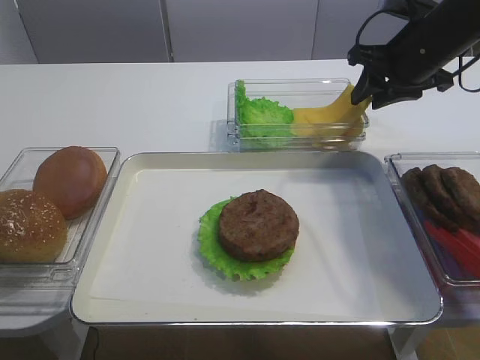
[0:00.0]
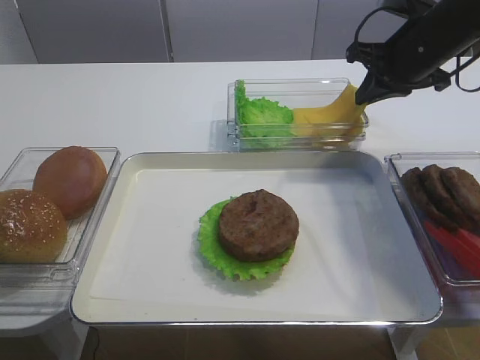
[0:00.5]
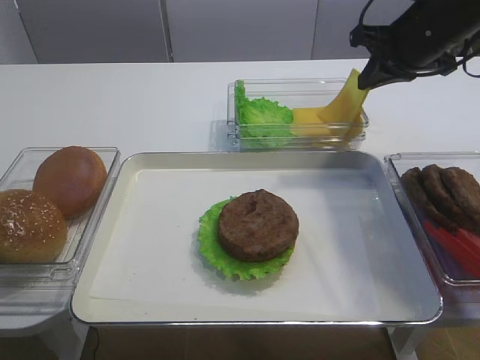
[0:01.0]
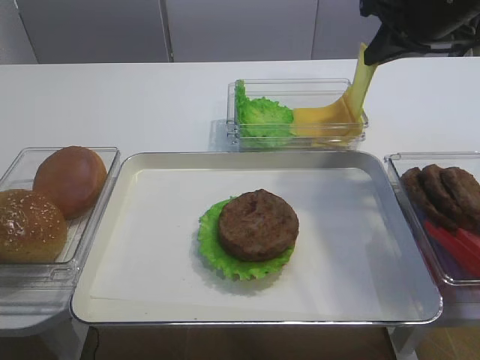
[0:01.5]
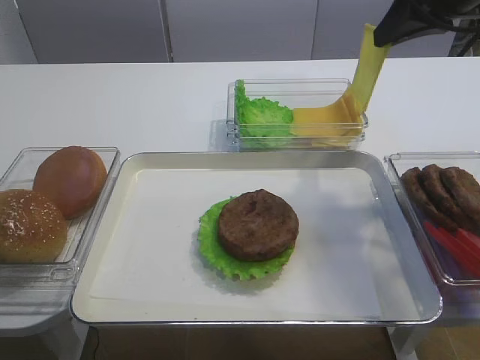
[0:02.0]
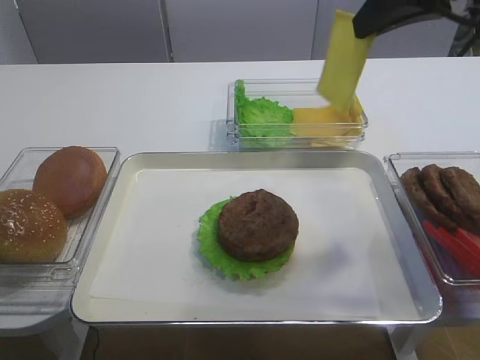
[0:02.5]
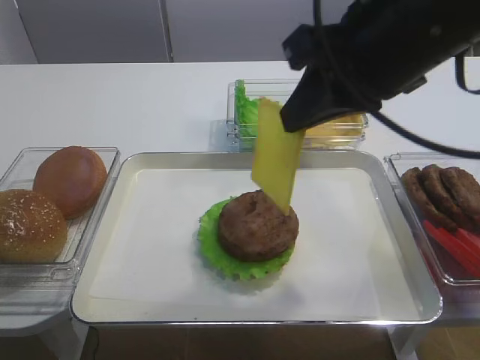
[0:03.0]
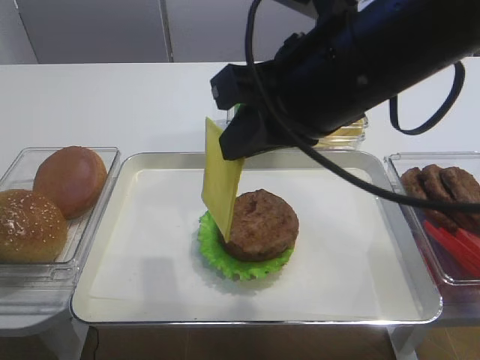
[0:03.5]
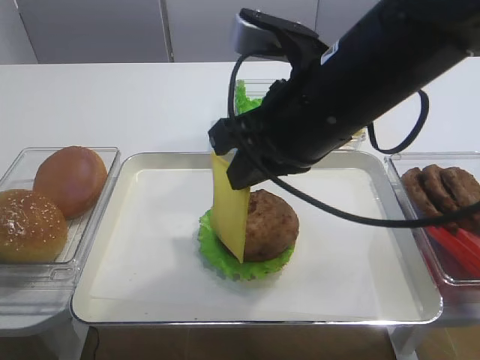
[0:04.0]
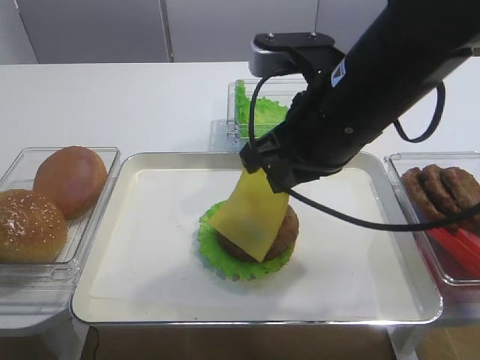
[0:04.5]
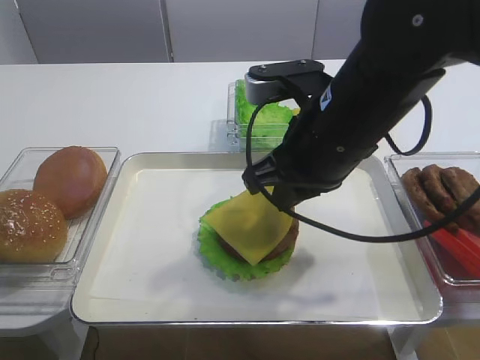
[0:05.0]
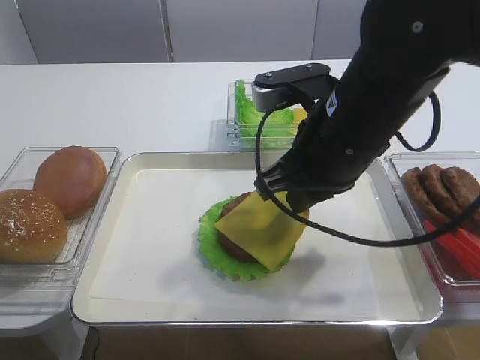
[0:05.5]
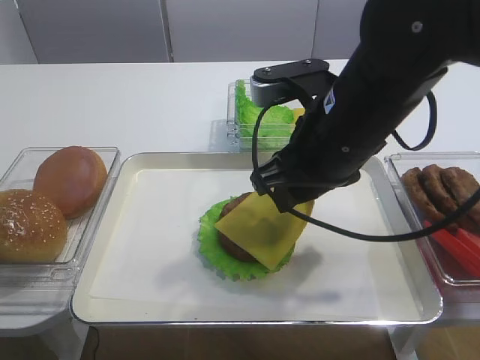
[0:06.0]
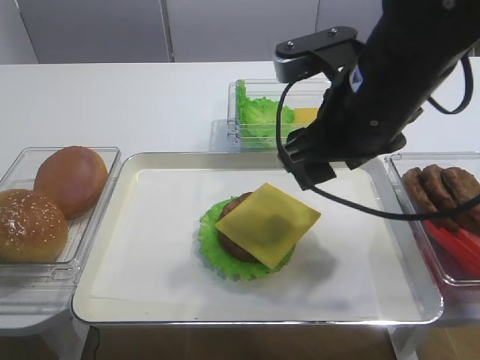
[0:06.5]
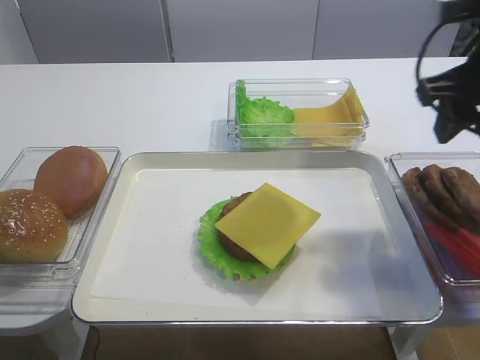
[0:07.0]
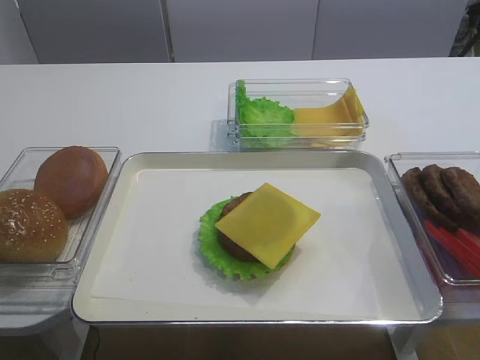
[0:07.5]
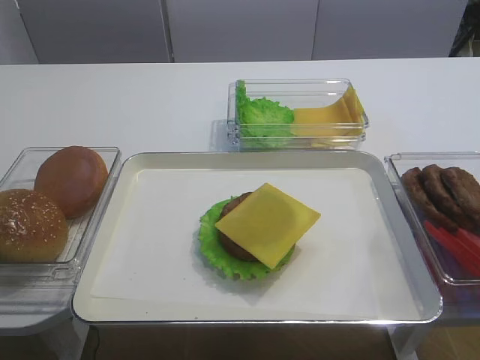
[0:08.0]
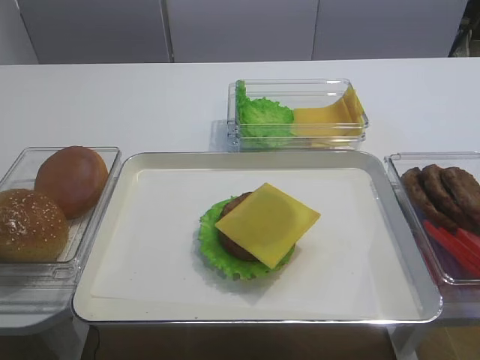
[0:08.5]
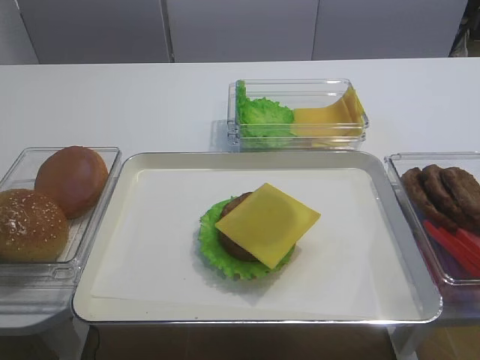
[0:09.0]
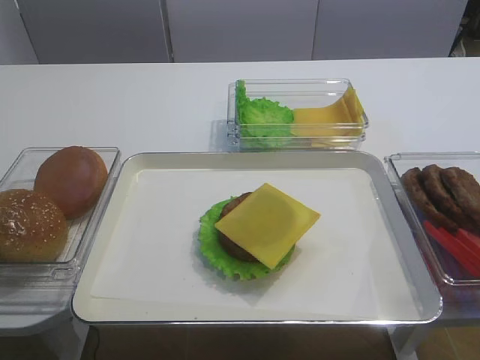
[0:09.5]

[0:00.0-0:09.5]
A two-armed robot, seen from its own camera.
Step, 0:01.0 to 0:06.0: Place the cheese slice on the cutlet with the right gripper.
0:00.0 to 0:02.0: The right gripper travels upward and backward by some 10 cm, and closes up.
0:02.0 to 0:04.0: The right gripper is displaced to the left, backward and downward by about 20 cm.
0:05.5 to 0:07.5: The right gripper moves to the right and backward, about 20 cm, and opens its fingers.
0:07.5 to 0:09.5: The right gripper is displaced backward by some 15 cm.

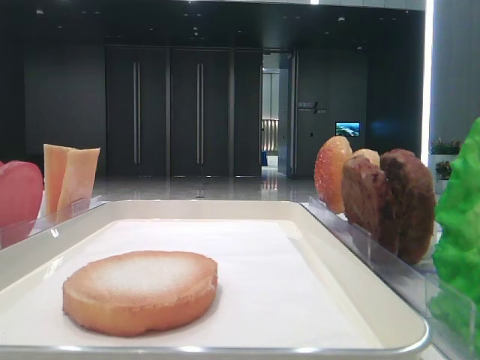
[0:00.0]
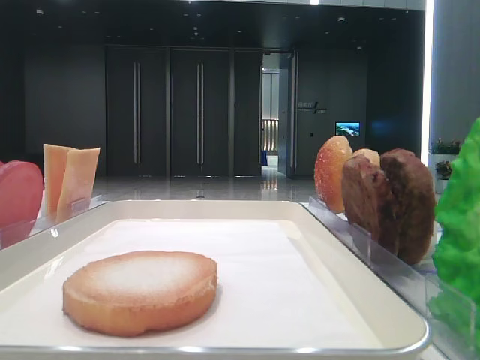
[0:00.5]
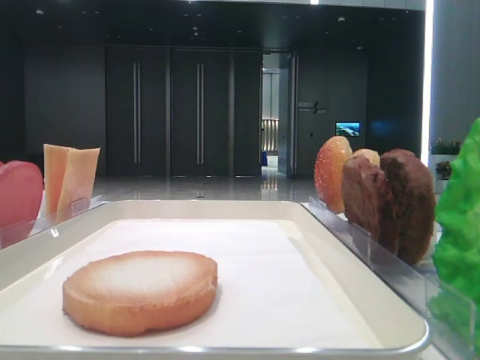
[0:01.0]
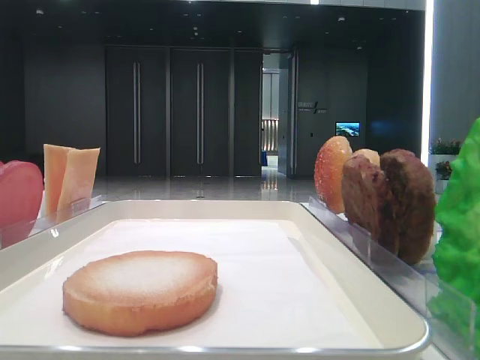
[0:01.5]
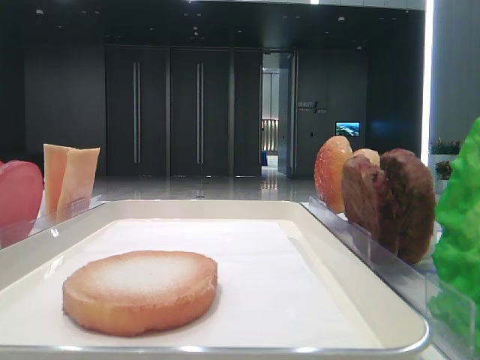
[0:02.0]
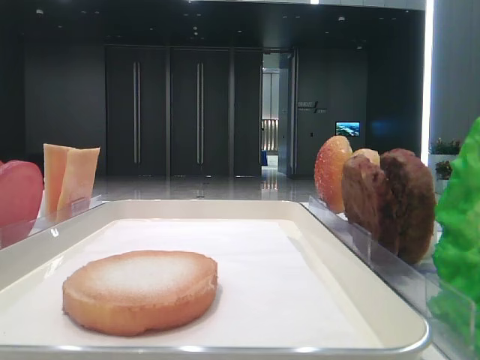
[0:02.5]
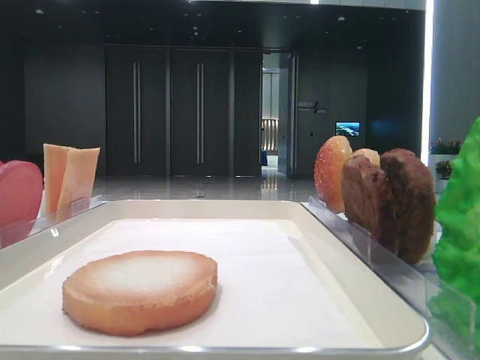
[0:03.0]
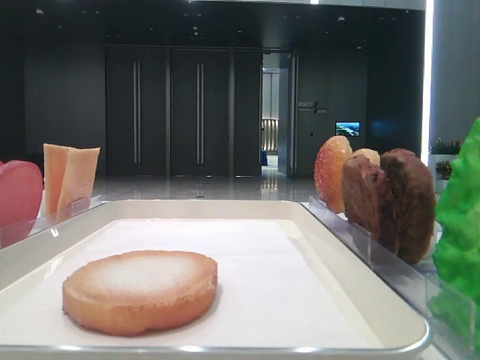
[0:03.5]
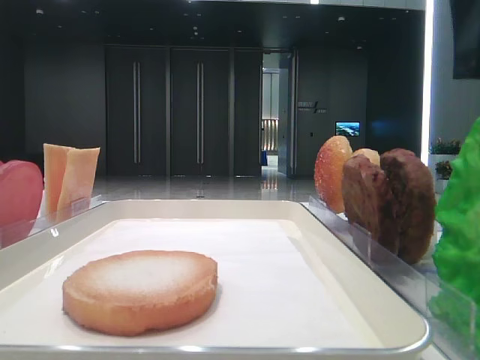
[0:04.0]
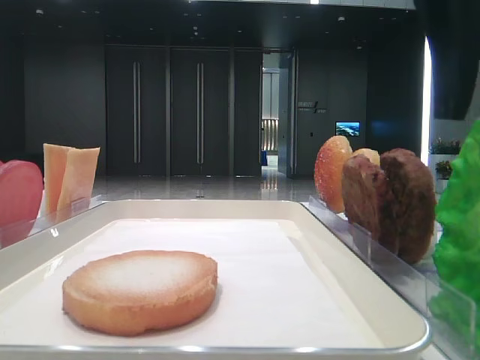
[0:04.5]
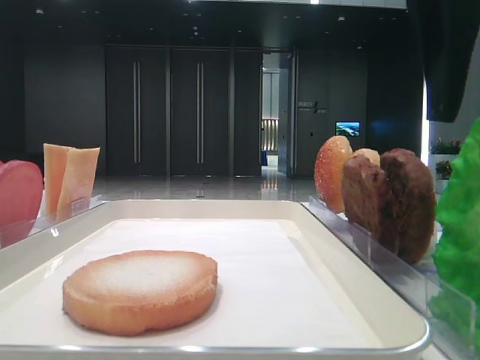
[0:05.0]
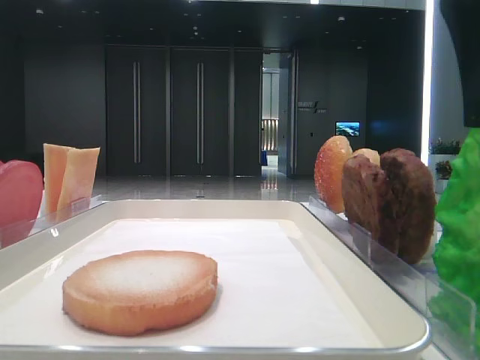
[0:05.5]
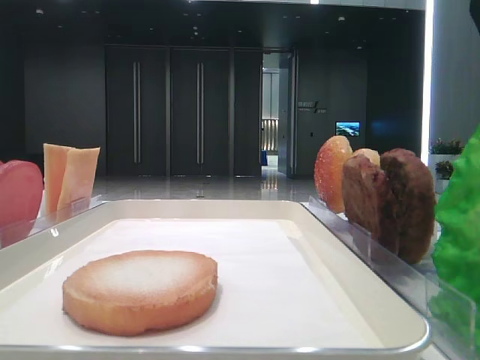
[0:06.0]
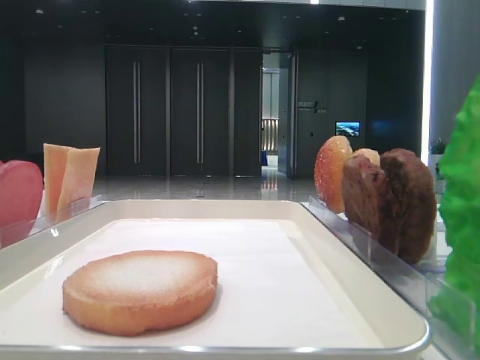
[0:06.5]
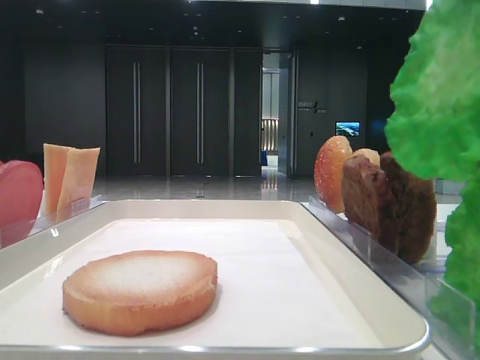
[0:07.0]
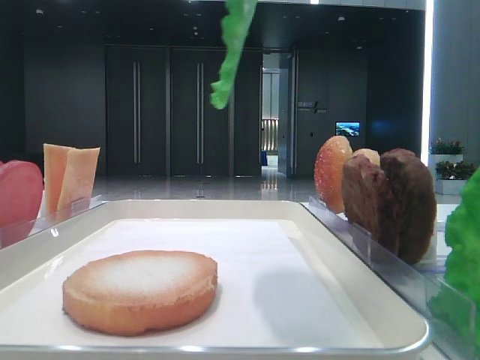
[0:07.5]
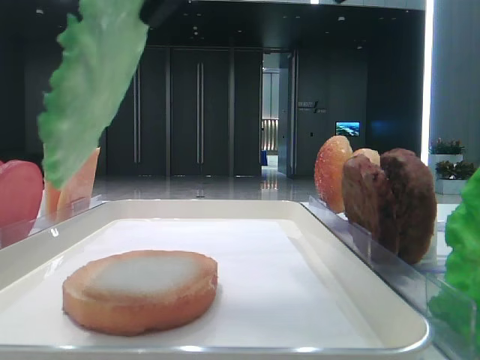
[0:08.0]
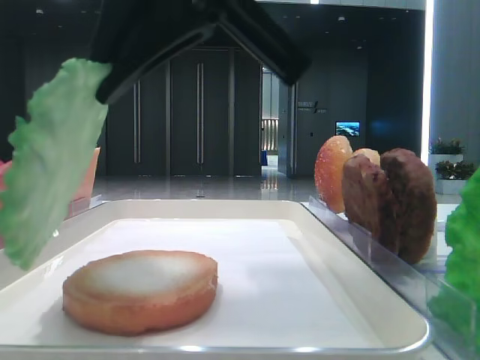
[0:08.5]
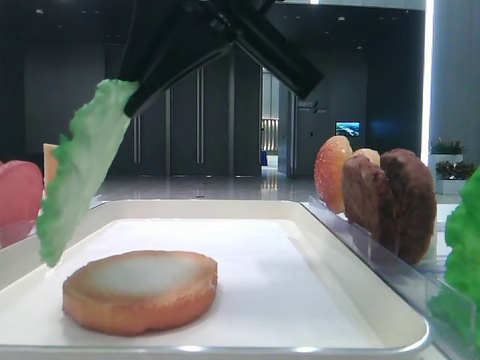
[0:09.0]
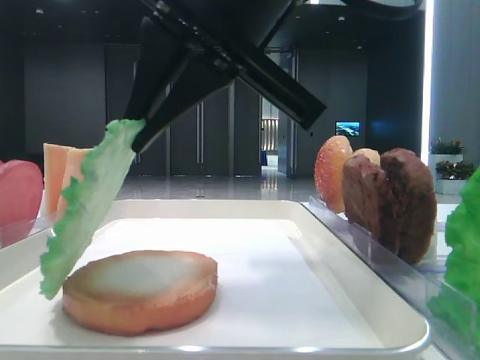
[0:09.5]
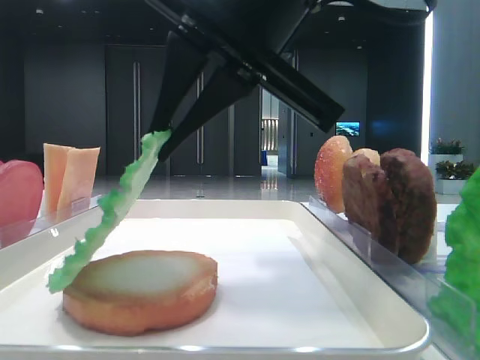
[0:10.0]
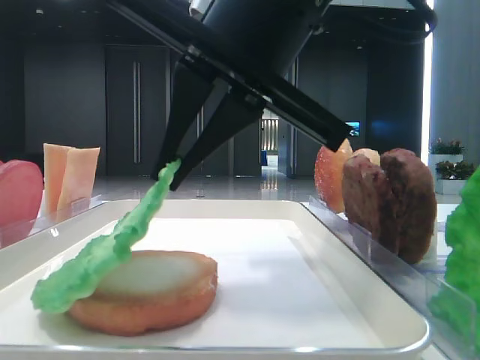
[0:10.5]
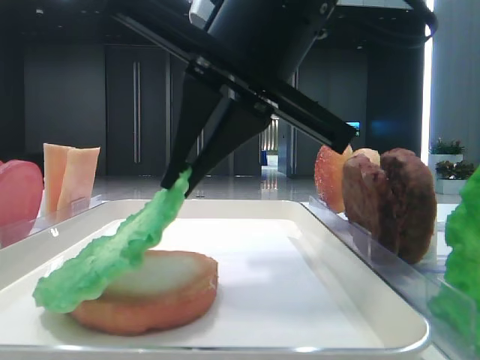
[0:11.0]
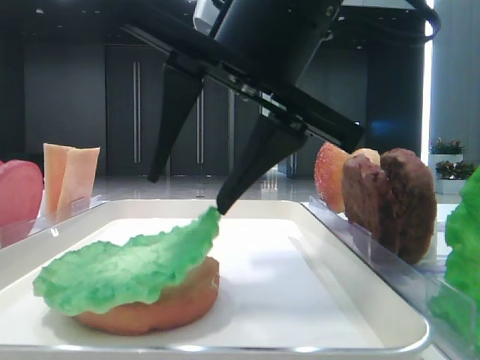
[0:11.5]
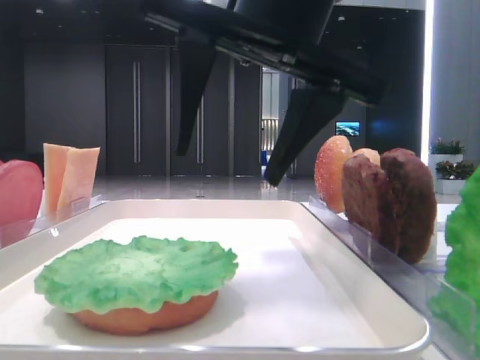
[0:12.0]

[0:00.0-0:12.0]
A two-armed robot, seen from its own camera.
Step, 0:00.0 to 0:06.0: Grab the lettuce leaf with the right hand.
Step, 0:06.5 to 0:11.5: Place the lettuce leaf on the bottom bread with the right hand.
0:02.0 to 0:04.0: The right gripper heads to the left, forward and downward, covering roughly 15 cm.
0:04.0 to 0:06.0: The right gripper closes.
0:06.0 to 0:08.0: The right gripper goes some 10 cm to the left.
0:08.0 to 0:10.0: The right gripper is displaced downward by about 5 cm.
0:10.0 to 0:12.0: The right gripper opens up.

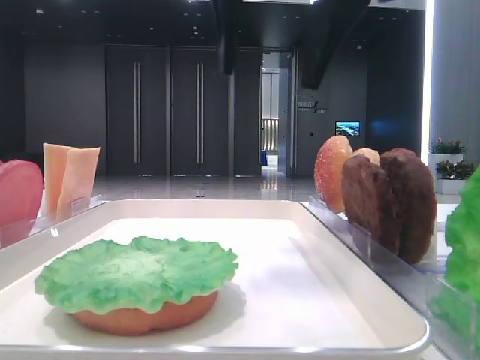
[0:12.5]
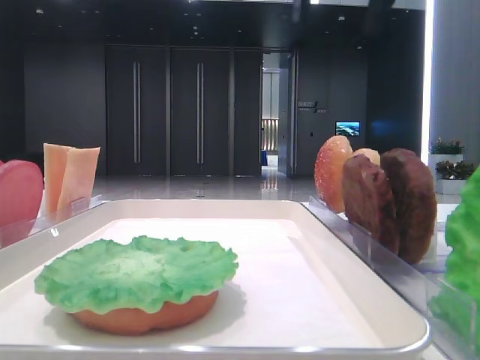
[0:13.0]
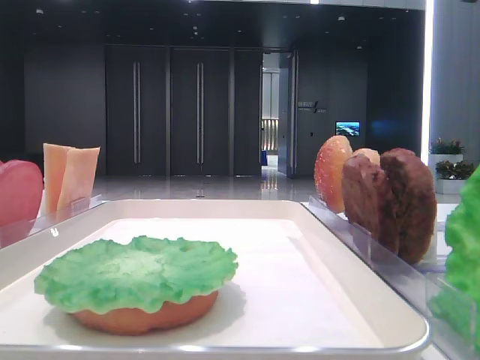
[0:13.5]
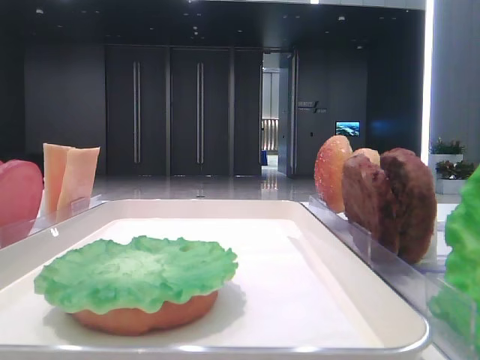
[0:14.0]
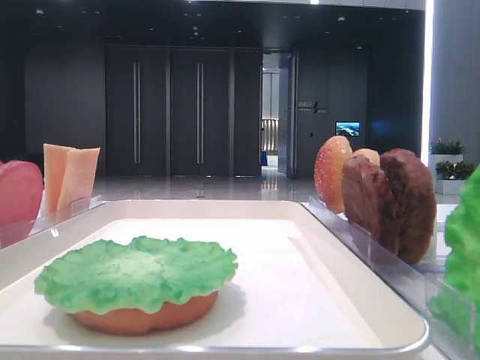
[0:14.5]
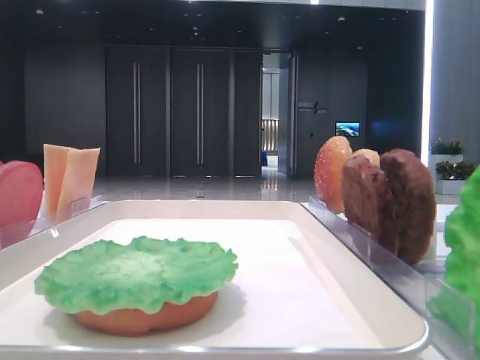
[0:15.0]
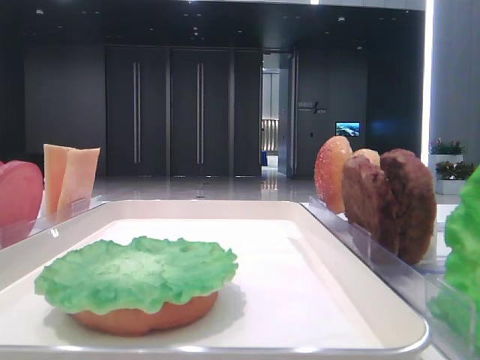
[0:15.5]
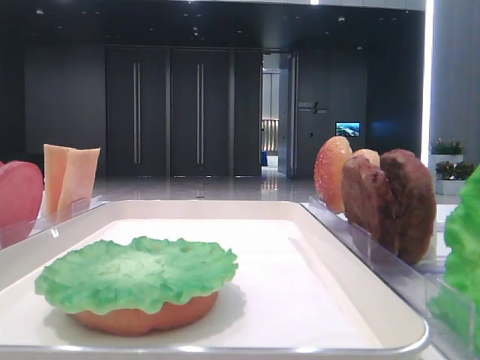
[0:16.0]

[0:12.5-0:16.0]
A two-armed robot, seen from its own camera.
0:12.5 to 0:14.5: The right gripper shifts about 30 cm to the right and backward.

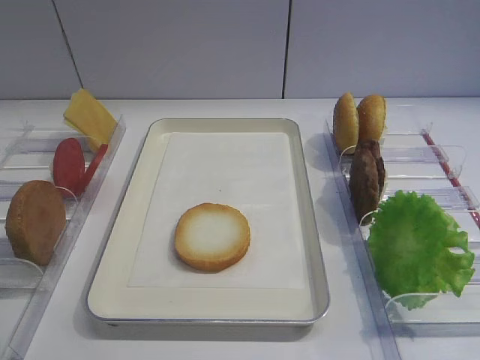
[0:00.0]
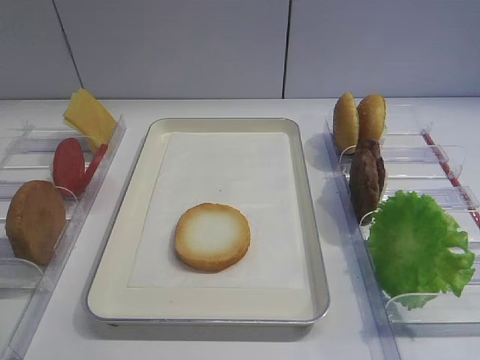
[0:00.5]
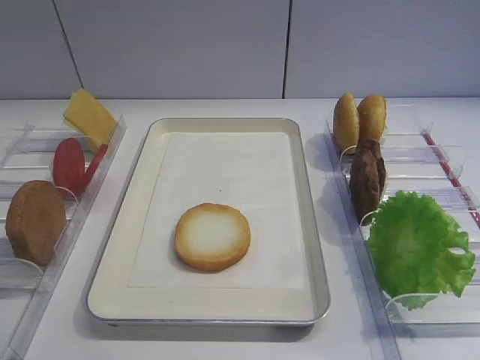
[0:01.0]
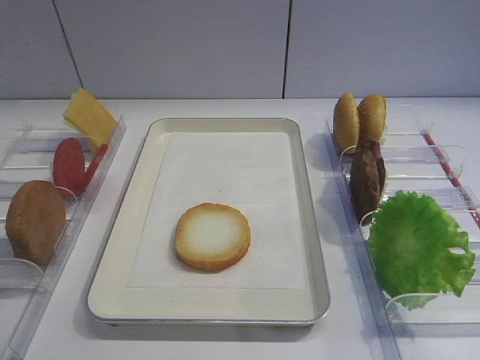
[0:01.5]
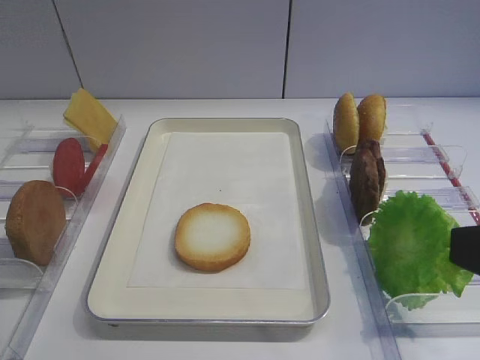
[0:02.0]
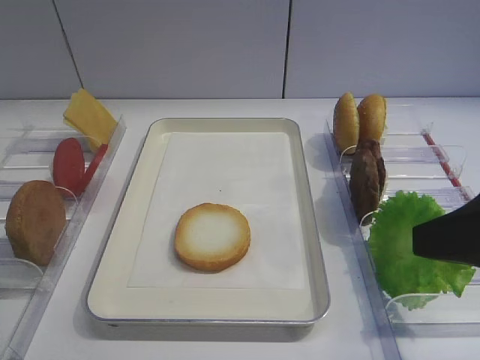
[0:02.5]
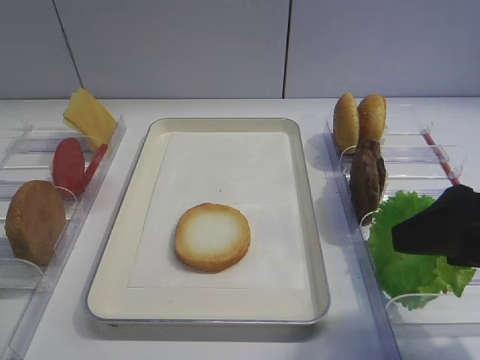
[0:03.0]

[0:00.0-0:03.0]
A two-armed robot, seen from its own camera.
0:01.5 to 0:03.0: The right gripper moves forward, about 15 cm.
